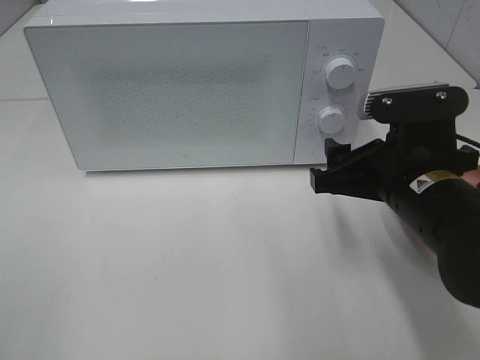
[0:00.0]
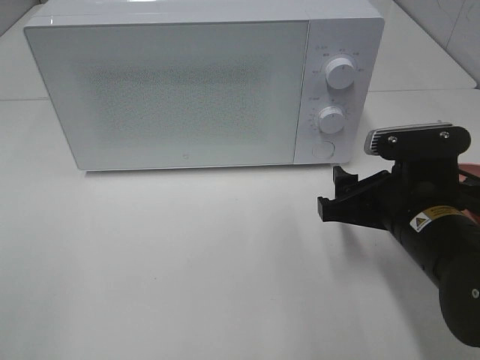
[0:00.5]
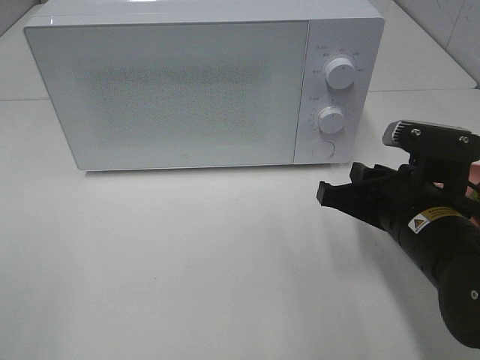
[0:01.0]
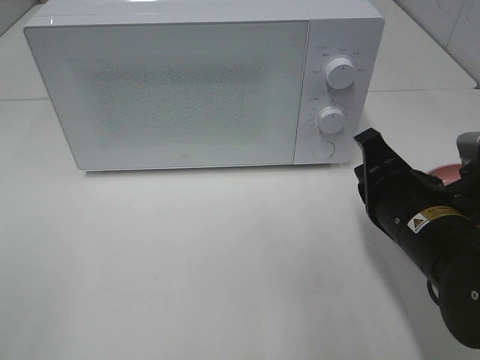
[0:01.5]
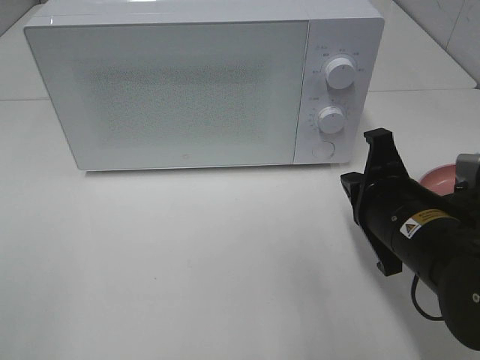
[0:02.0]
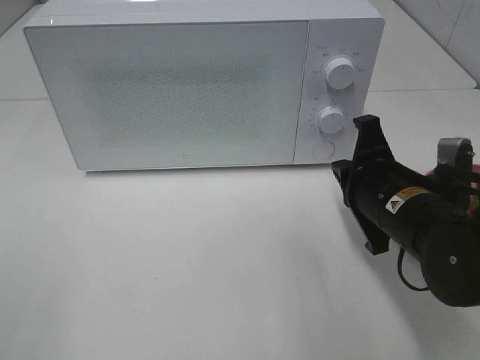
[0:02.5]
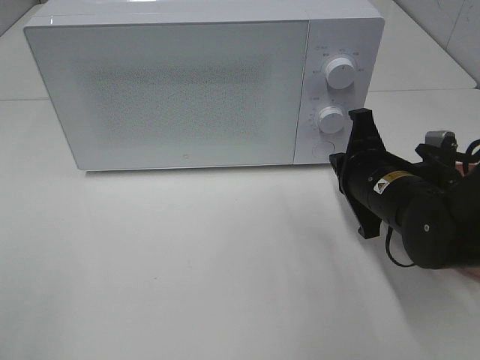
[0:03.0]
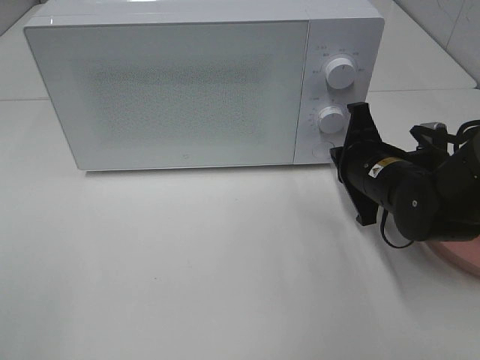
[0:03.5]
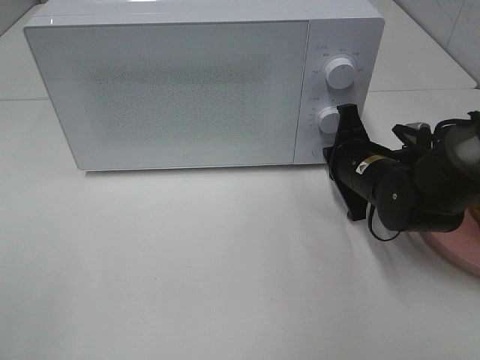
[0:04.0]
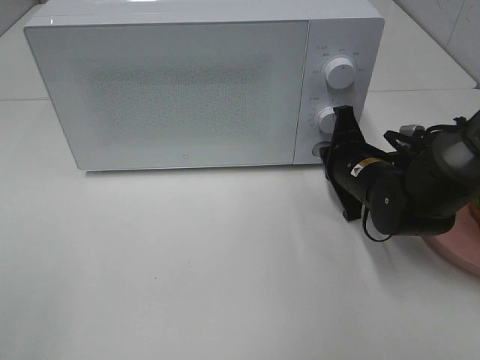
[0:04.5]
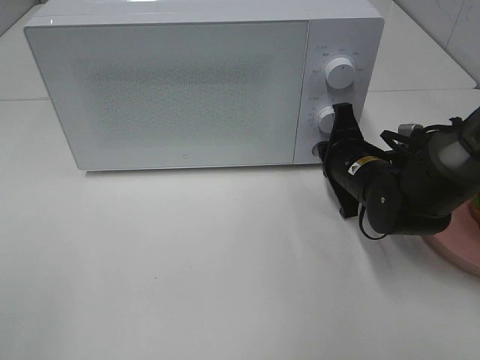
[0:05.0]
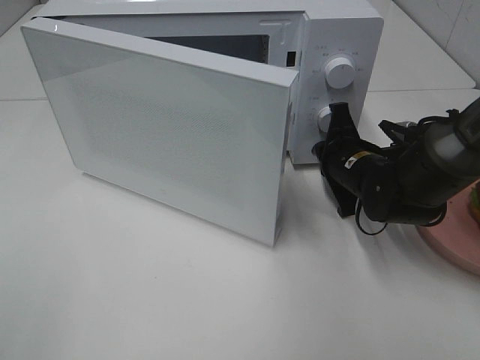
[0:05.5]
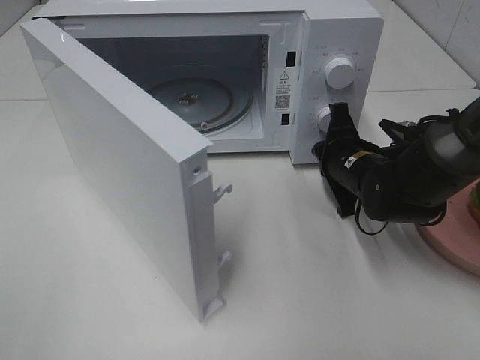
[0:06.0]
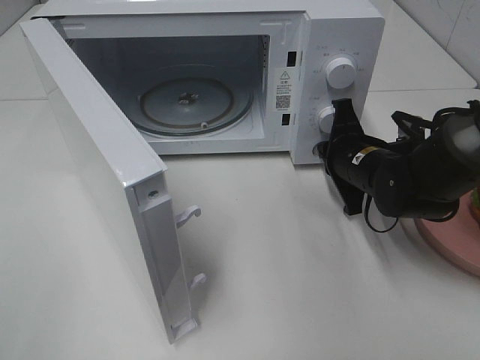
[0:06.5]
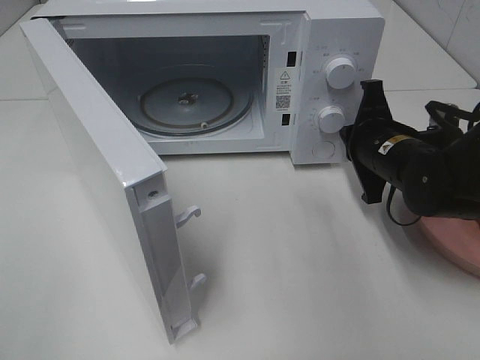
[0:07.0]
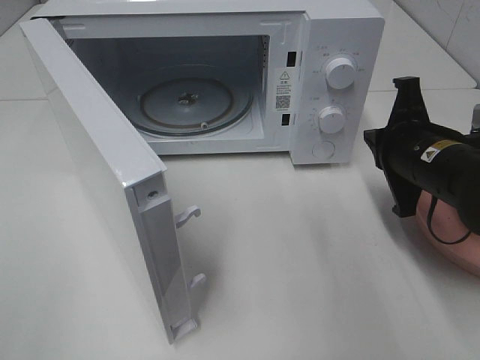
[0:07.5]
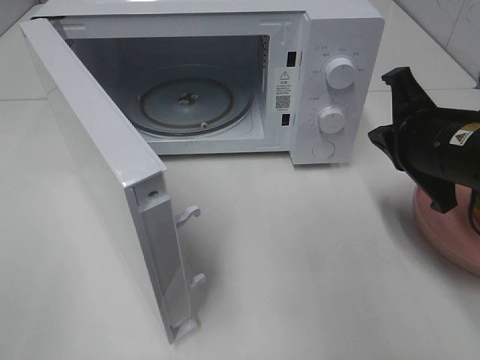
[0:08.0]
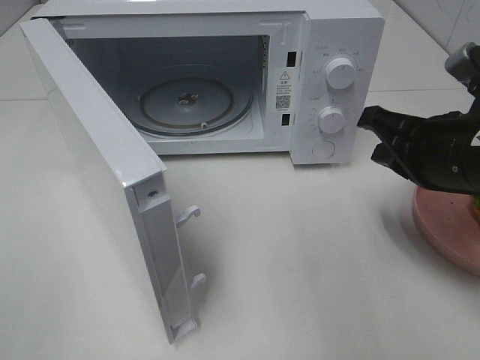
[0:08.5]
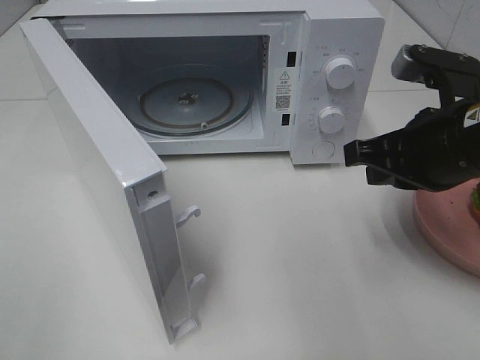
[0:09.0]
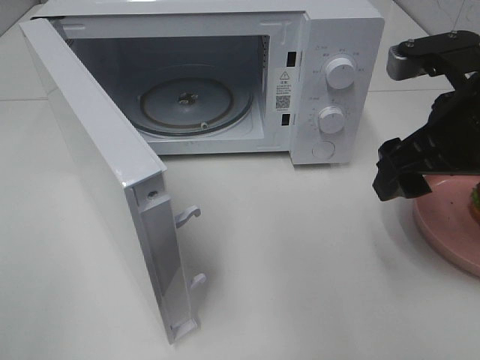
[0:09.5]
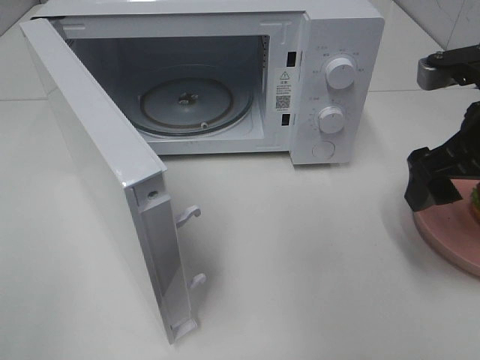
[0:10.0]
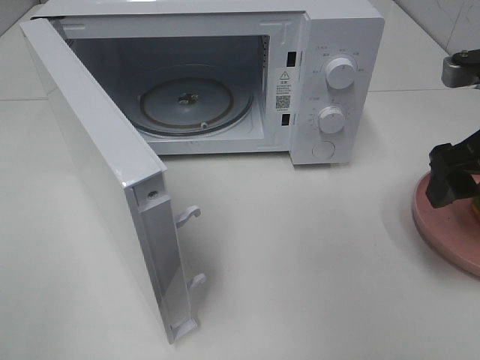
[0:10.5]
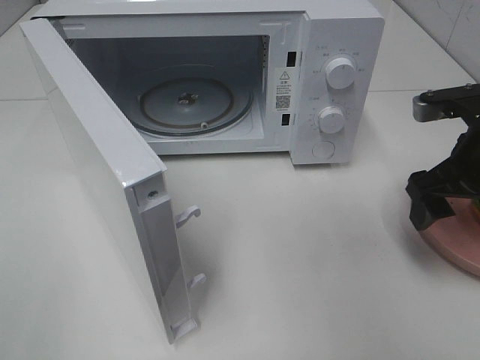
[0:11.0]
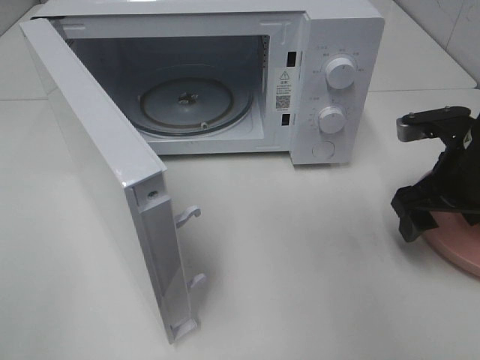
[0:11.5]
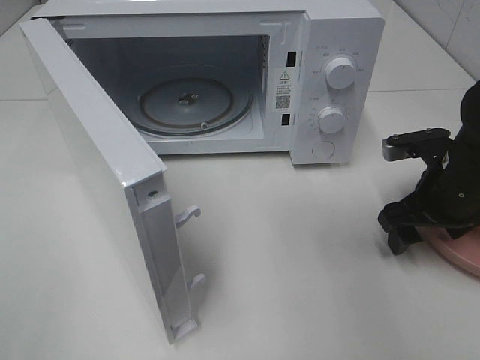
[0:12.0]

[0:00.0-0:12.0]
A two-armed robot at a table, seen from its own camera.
Task of the whole recording: Heat the burger.
Step, 0:00.0 to 0:06.5: Right hand: press the switch.
0:00.0 to 0:02.0: The right gripper closes up.
0:02.0 to 0:04.0: The right gripper goes about 10 cm forward.
0:06.0 to 0:08.0: The right gripper shifts approximately 15 cm upward and backward.
0:08.0 to 0:10.0: The right gripper heads upward, covering roughly 5 cm, and opens its fingers.
0:10.0 to 0:12.0: The right gripper heads downward and forward, covering about 15 cm.

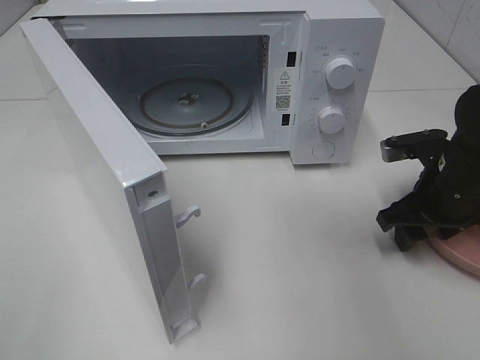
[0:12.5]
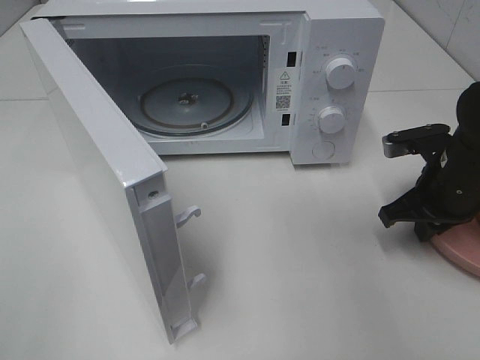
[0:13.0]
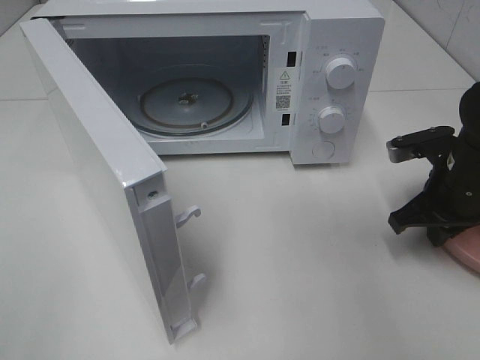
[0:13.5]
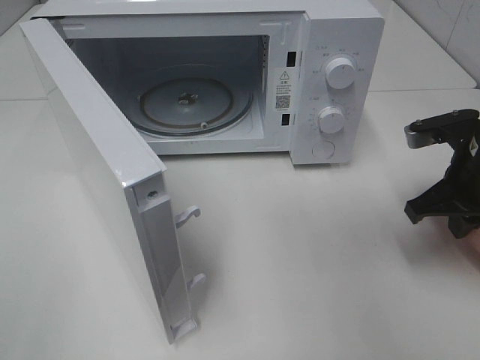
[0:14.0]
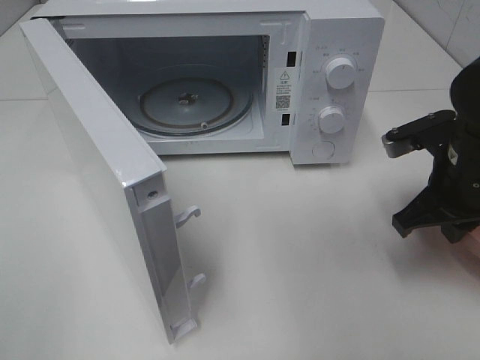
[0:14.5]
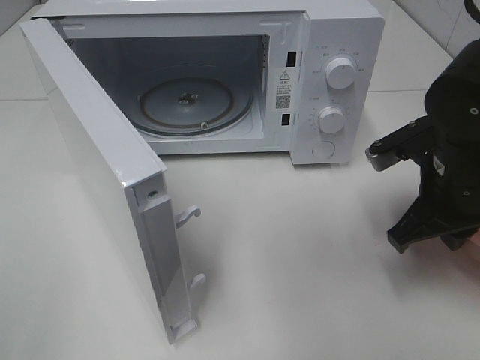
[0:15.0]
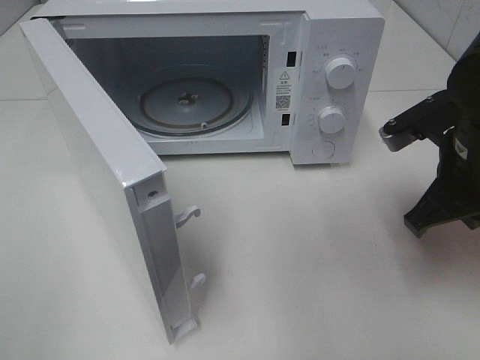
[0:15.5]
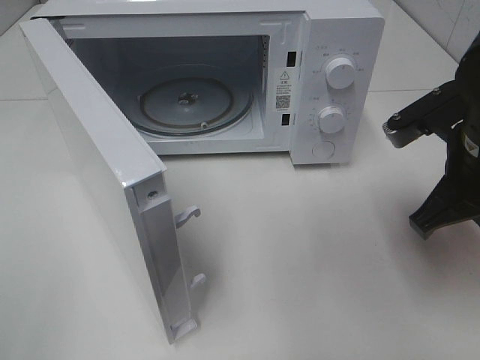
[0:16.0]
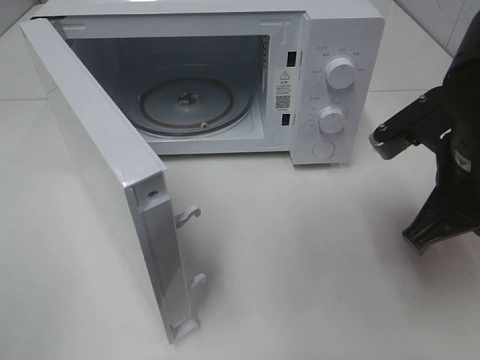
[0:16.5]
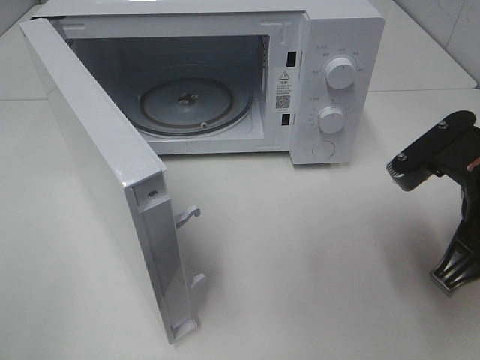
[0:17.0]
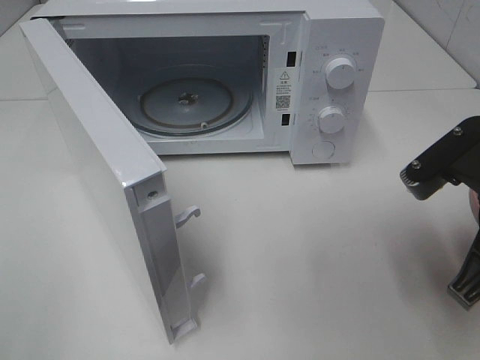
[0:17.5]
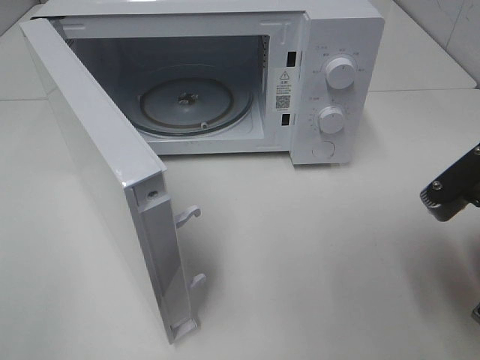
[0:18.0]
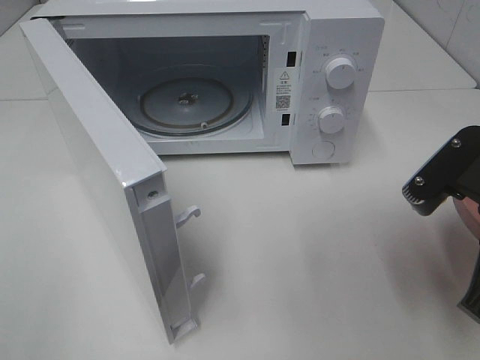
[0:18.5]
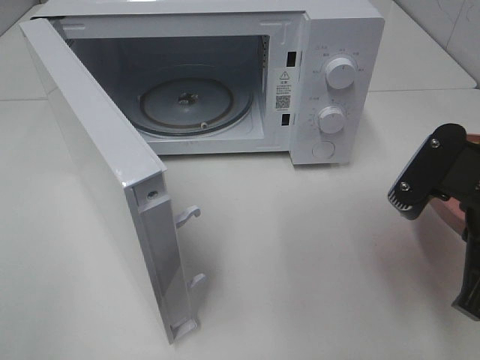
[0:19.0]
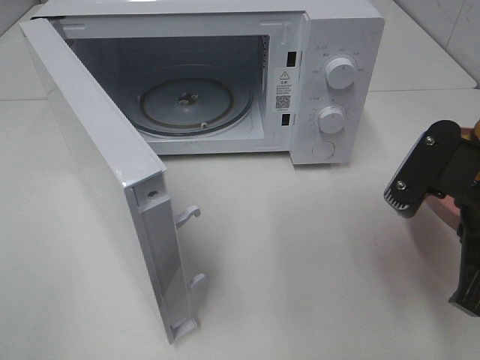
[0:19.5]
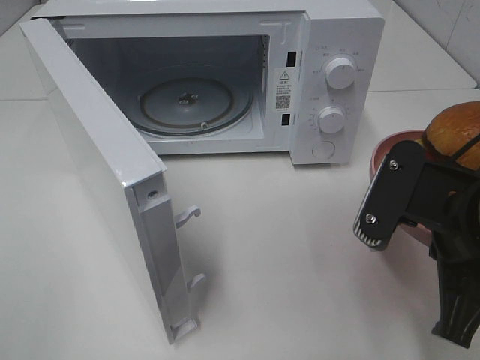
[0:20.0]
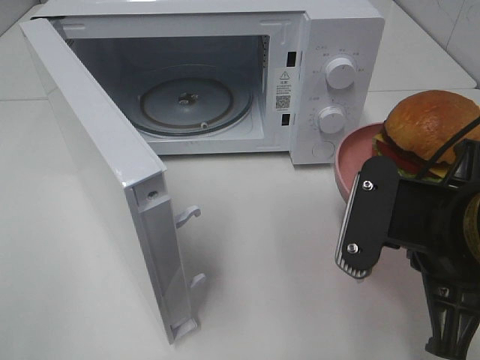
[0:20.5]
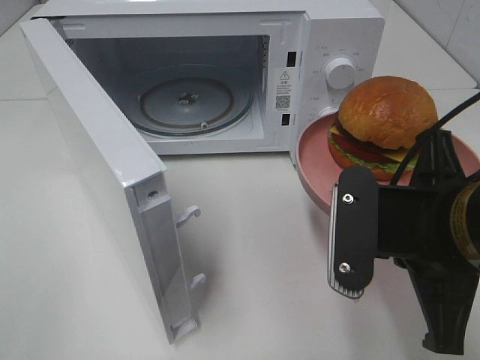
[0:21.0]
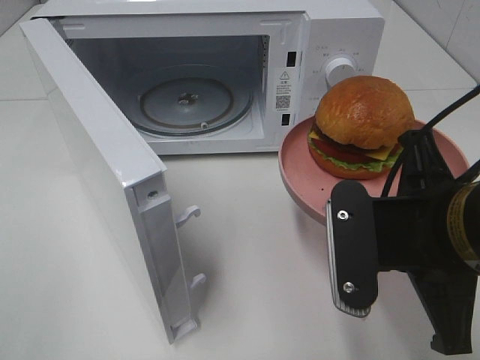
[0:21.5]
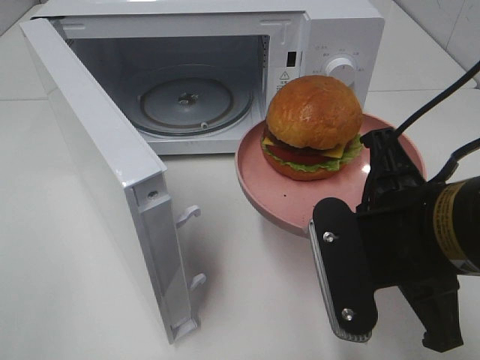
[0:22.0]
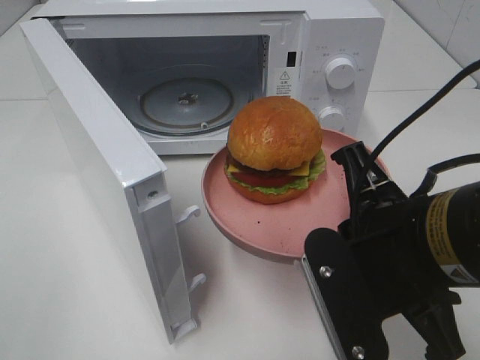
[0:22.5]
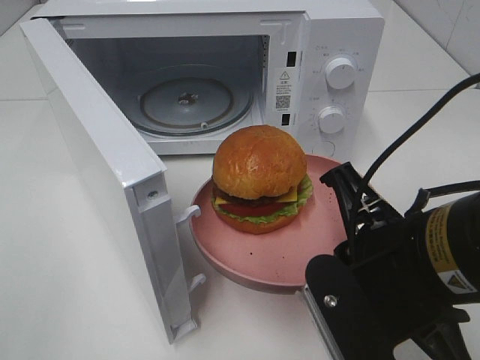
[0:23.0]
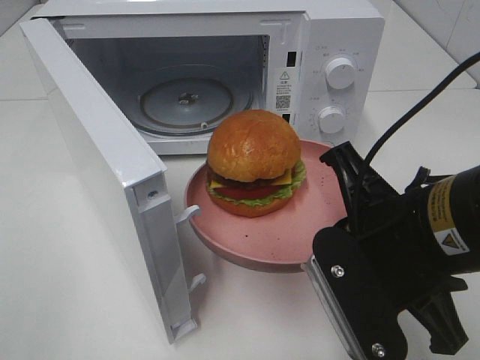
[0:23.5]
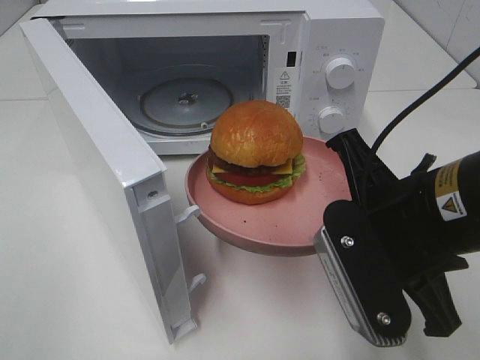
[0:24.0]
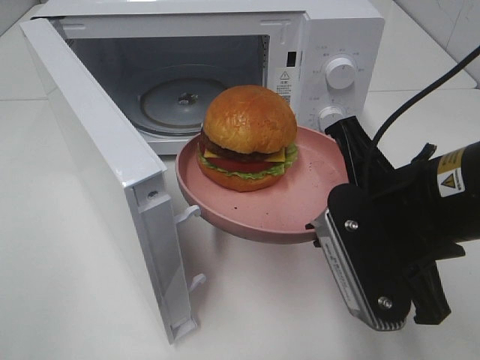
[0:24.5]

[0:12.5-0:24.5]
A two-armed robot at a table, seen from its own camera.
Task of the whole recording: Heat the burger.
0:12.5 to 0:14.5: The right gripper moves upward, approximately 5 cm, and closes.
0:14.5 to 0:16.5: The right gripper is displaced backward and upward by about 5 cm.
0:16.5 to 0:18.5: The right gripper is displaced backward by some 5 cm.
0:18.5 to 0:20.5: The right gripper moves to the left, some 5 cm.
0:22.5 to 0:24.5: The grippers stay close to where they were, moving slightly.

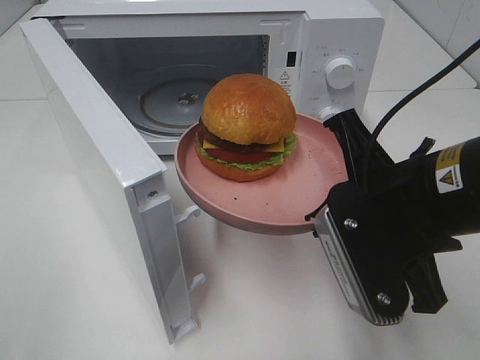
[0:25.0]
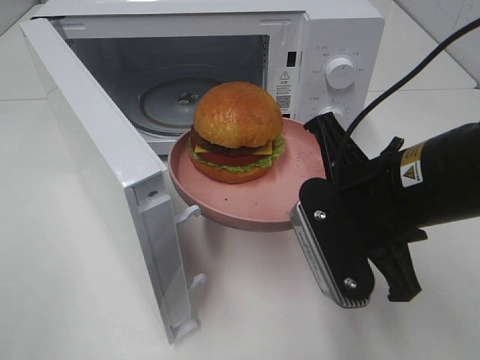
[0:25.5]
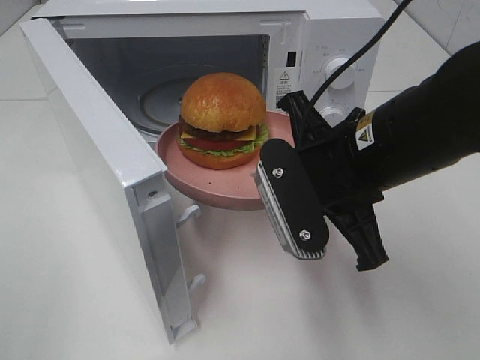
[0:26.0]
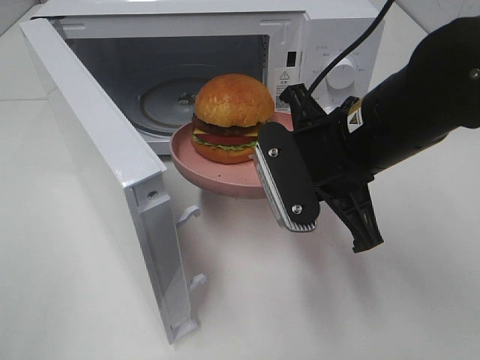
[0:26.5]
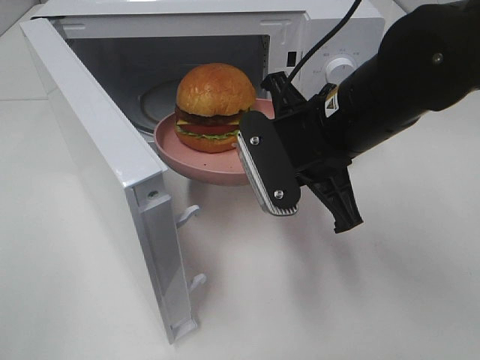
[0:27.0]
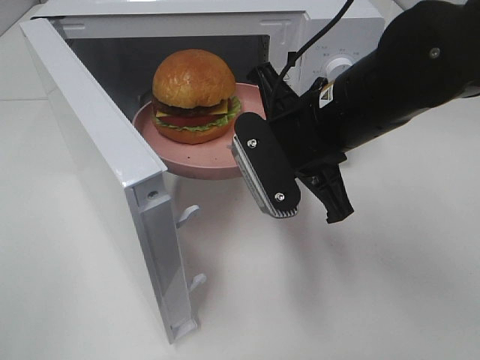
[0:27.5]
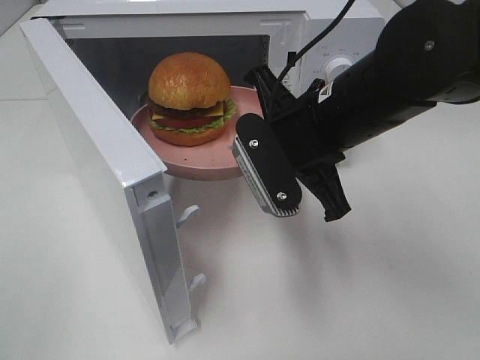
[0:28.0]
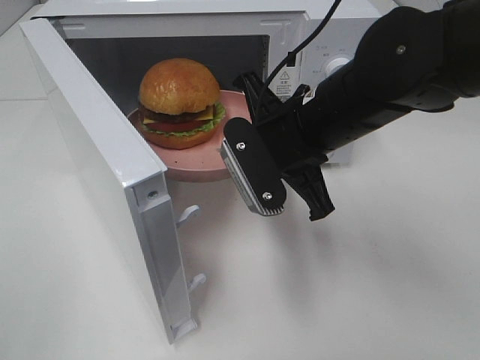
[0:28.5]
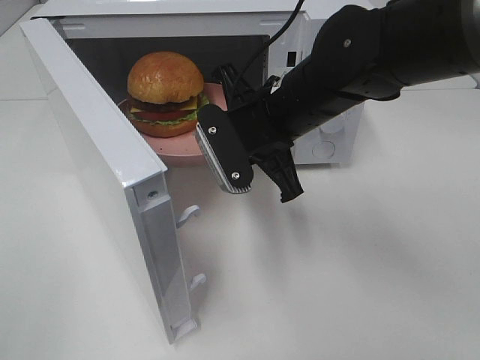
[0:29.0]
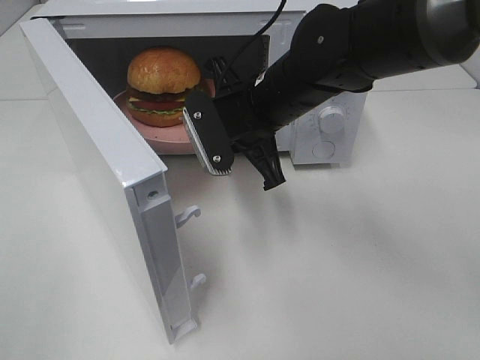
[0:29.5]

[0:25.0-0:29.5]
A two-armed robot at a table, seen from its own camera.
Task of the whole recording: Heat the burger.
0:25.0 to 0:27.0: The right gripper moves forward and to the left, approximately 10 cm.
0:27.0 to 0:29.5: The right gripper heads forward, covering approximately 10 cm.
